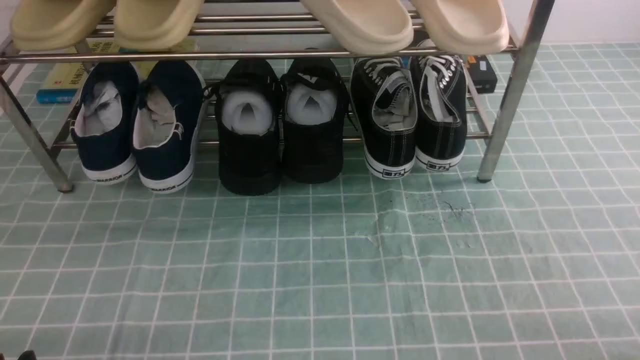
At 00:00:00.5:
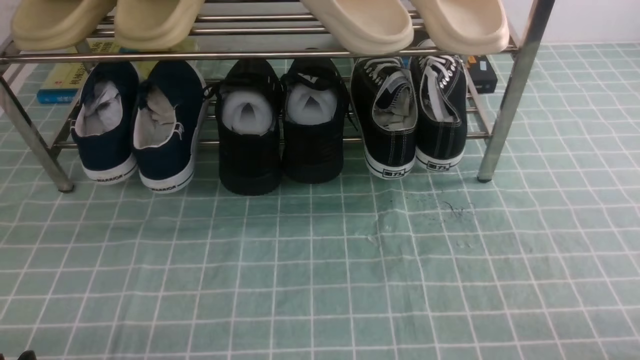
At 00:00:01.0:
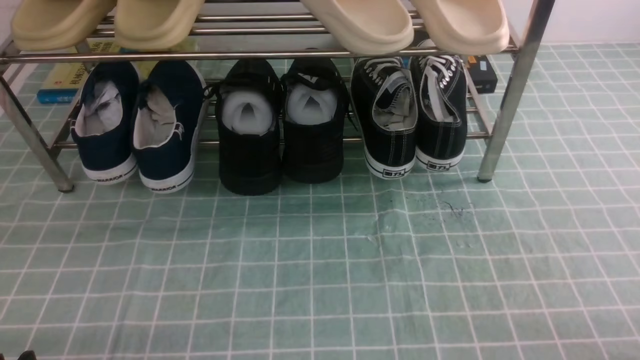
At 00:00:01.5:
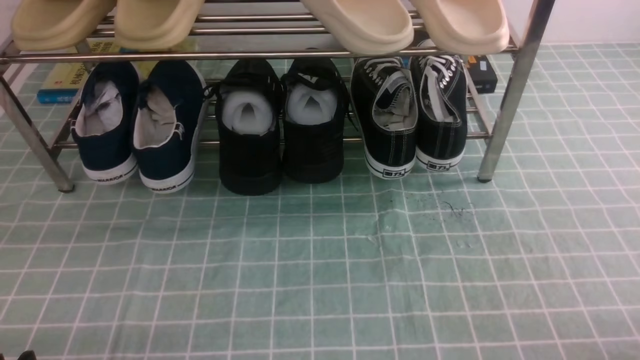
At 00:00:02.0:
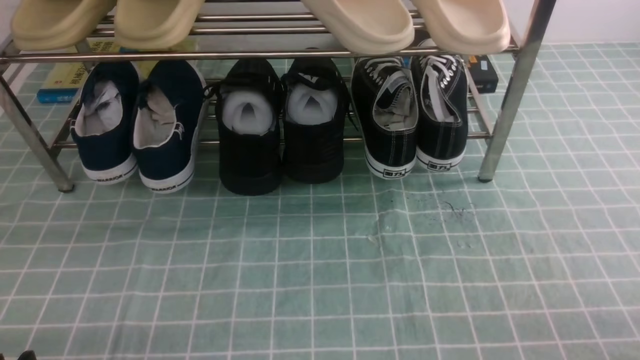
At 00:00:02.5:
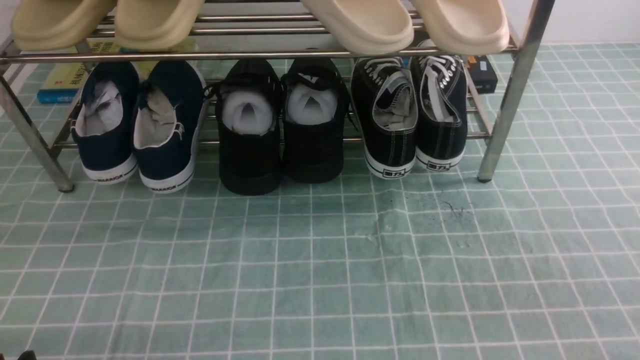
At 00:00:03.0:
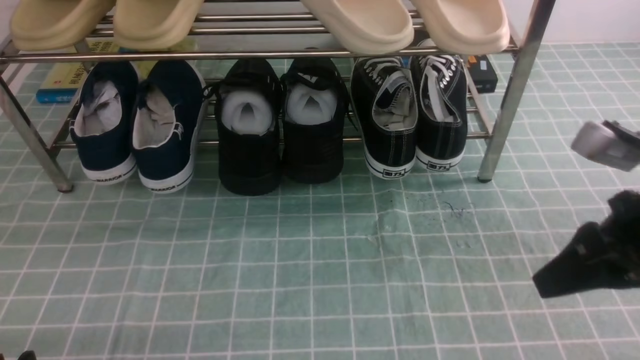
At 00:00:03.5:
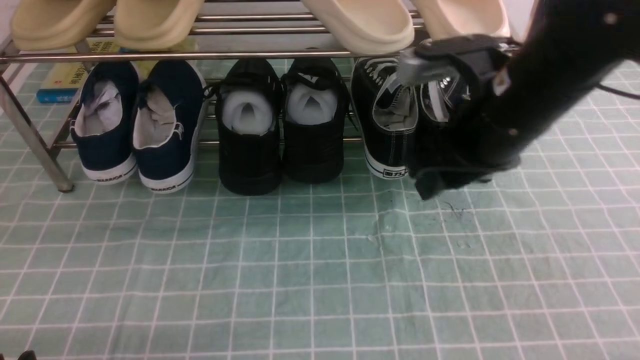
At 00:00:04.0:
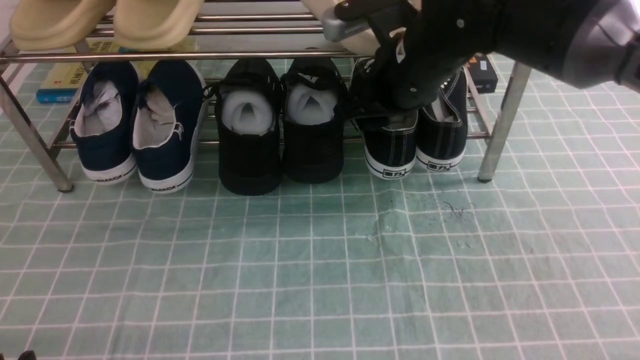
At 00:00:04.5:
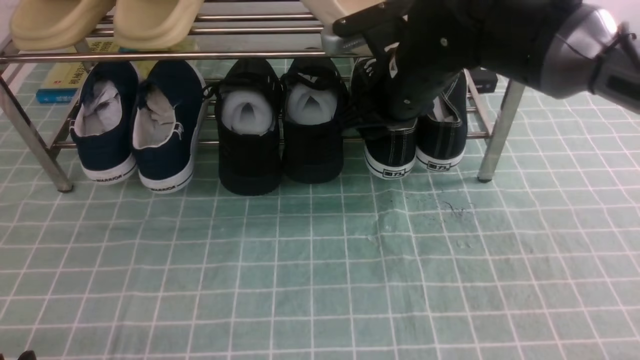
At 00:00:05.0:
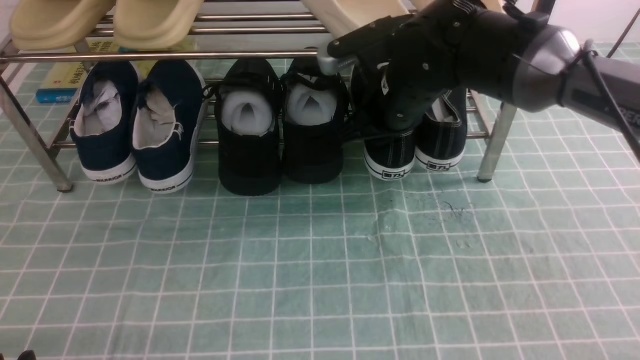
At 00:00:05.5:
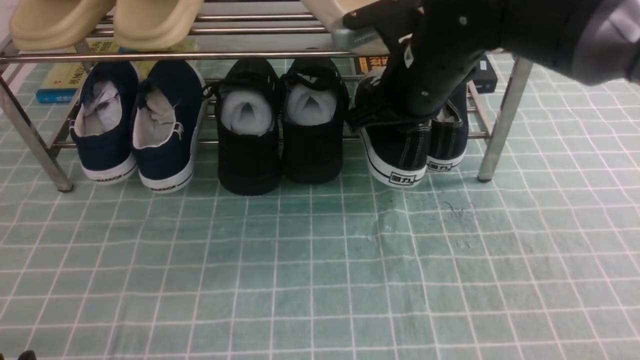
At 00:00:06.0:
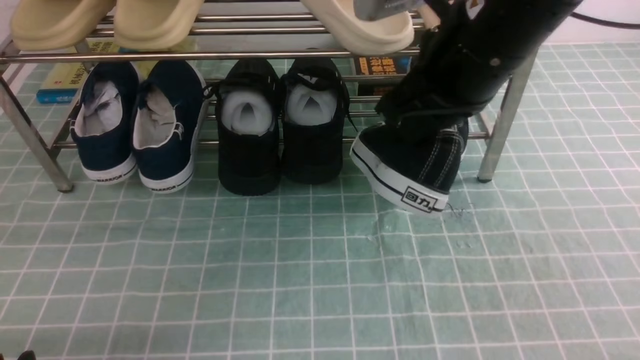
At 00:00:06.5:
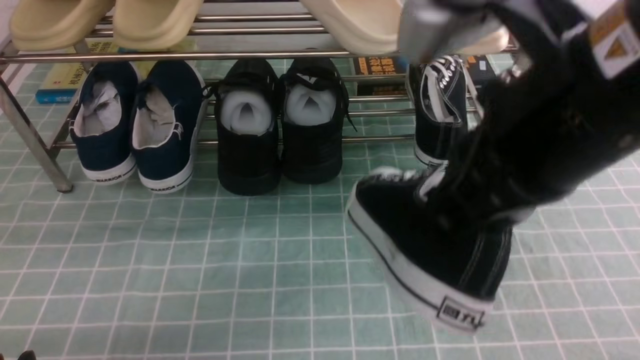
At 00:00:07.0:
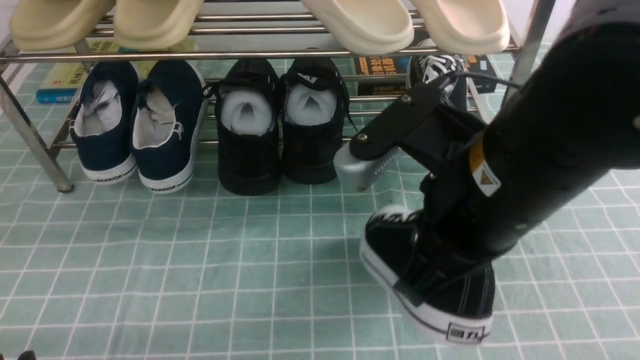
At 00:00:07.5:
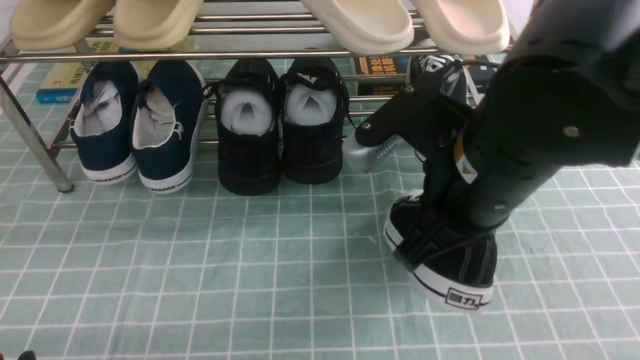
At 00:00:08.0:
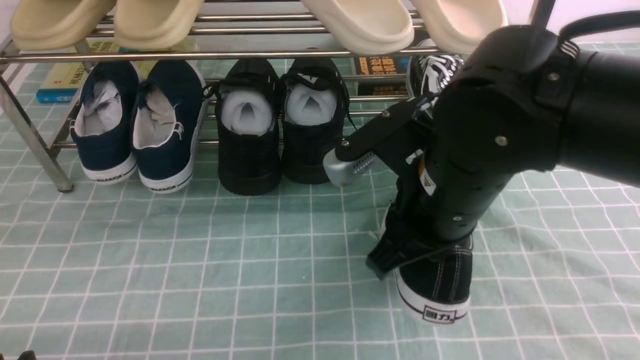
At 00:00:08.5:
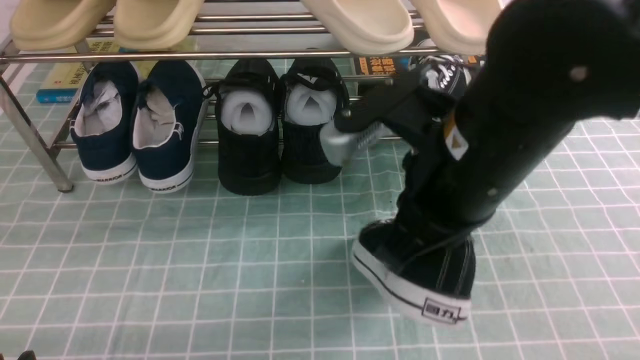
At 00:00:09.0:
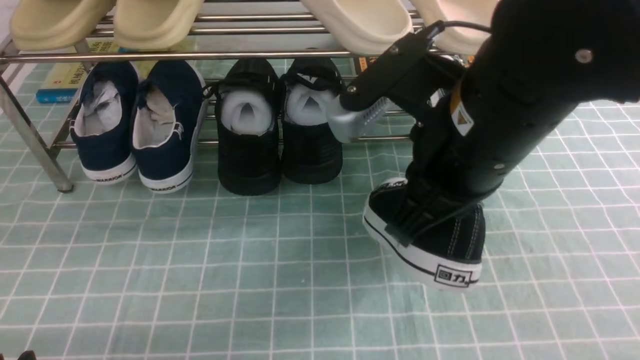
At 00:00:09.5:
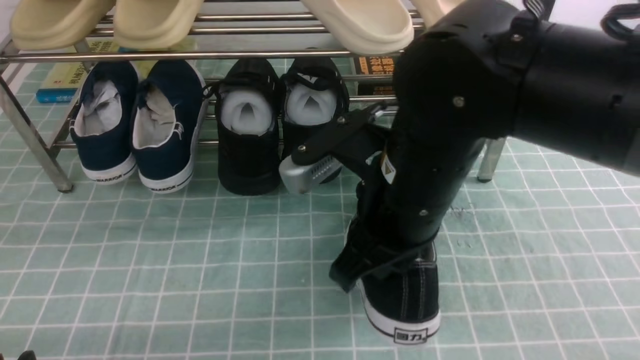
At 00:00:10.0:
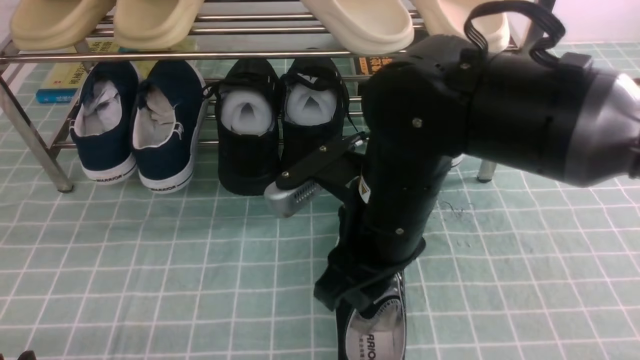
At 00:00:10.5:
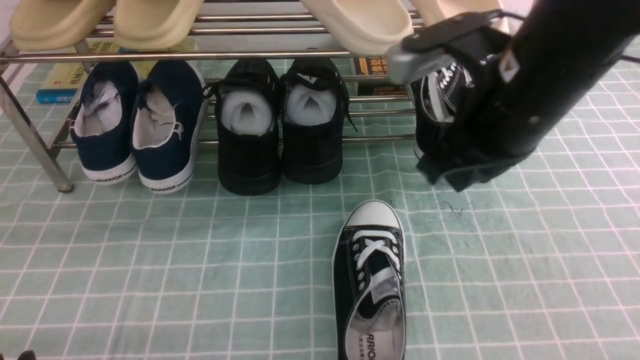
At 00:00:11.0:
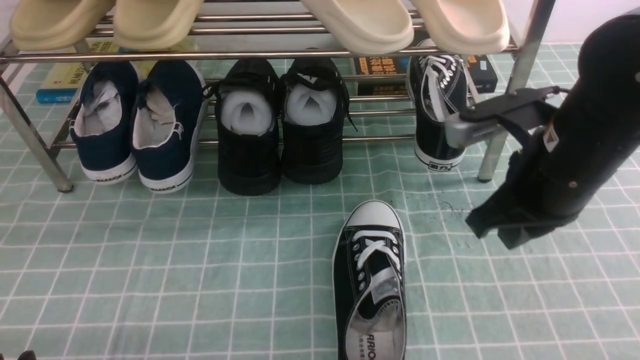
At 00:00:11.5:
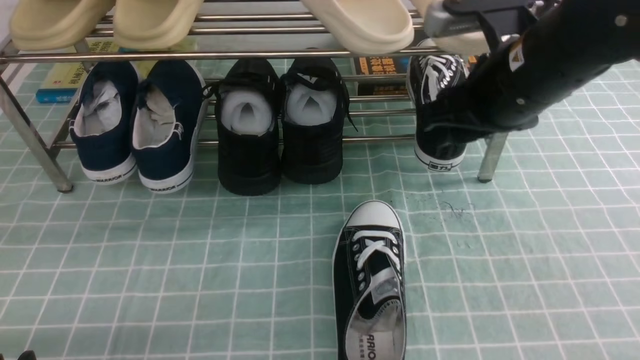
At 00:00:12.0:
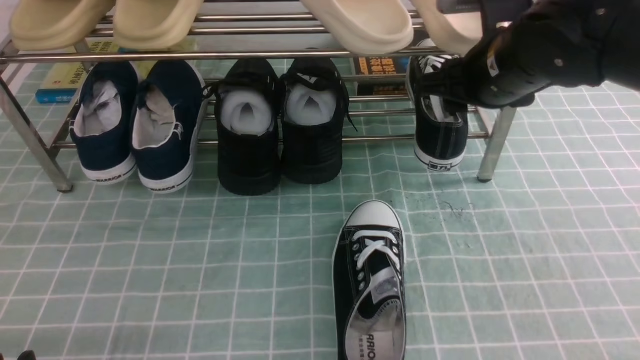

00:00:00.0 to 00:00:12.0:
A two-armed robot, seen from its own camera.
Step, 00:00:00.0 to 00:00:04.5: use the right arm to clamp a shoe on the right side of the shoe rack.
Step, 00:00:05.0 to 00:00:10.0: use the right arm to take out the clamped shoe from the shoe rack and put it down.
00:00:02.0 to 00:00:04.0: The right gripper is displaced forward and to the left by approximately 40 cm, and opens up.
00:00:04.0 to 00:00:06.0: The right gripper heads backward and upward, covering approximately 10 cm, and closes.
00:00:06.0 to 00:00:08.0: The right gripper heads downward, covering roughly 10 cm.
00:00:08.0 to 00:00:10.0: The right gripper opens up.
00:00:10.0 to 00:00:12.0: The right gripper moves forward and to the right, approximately 15 cm, and opens up.

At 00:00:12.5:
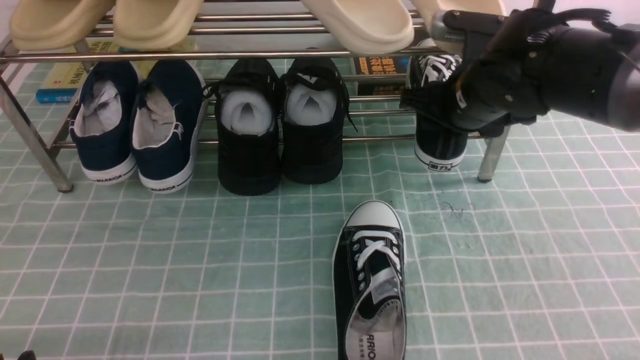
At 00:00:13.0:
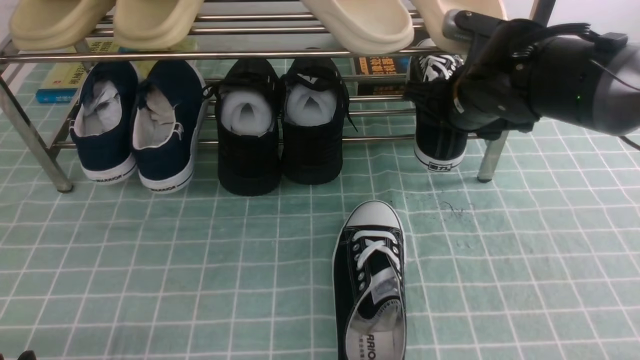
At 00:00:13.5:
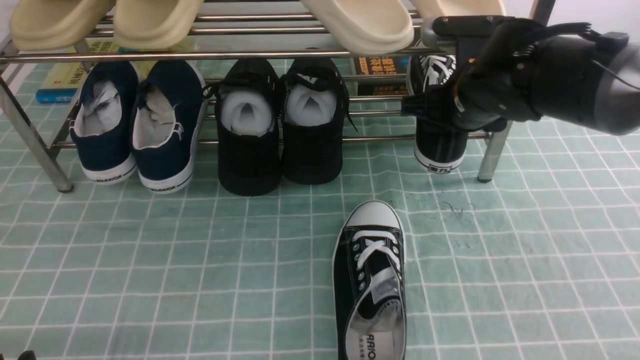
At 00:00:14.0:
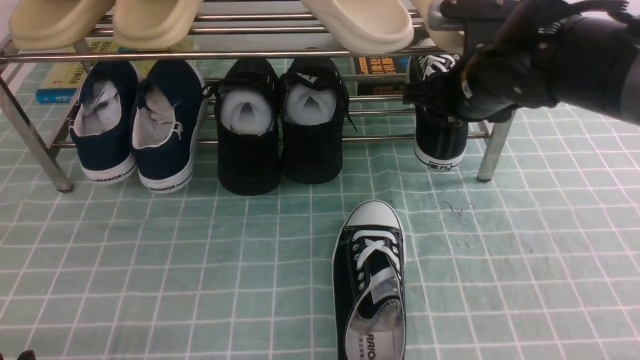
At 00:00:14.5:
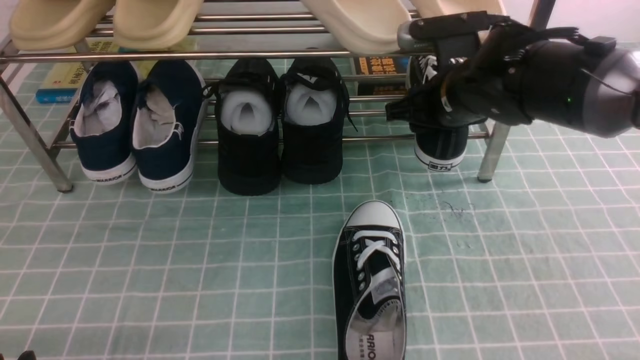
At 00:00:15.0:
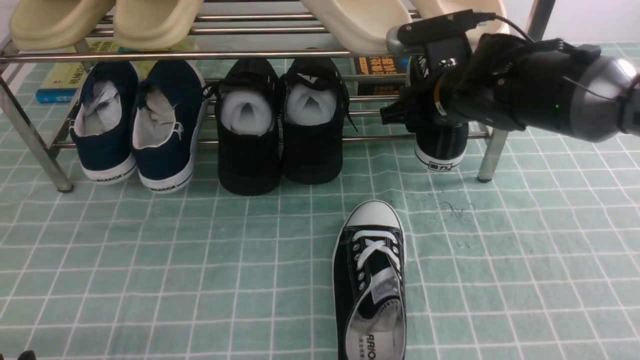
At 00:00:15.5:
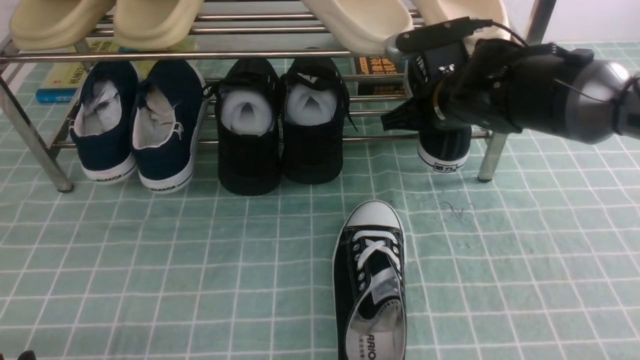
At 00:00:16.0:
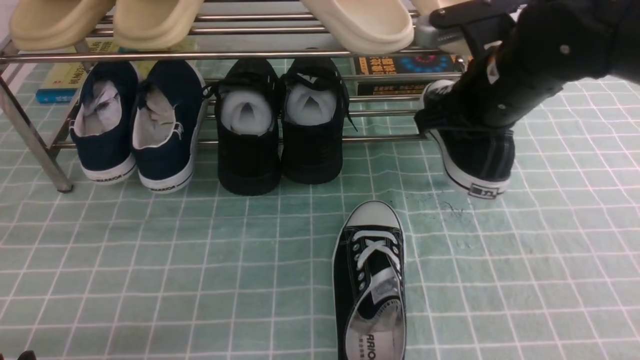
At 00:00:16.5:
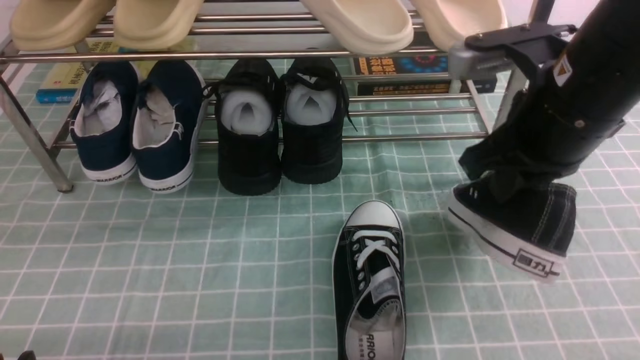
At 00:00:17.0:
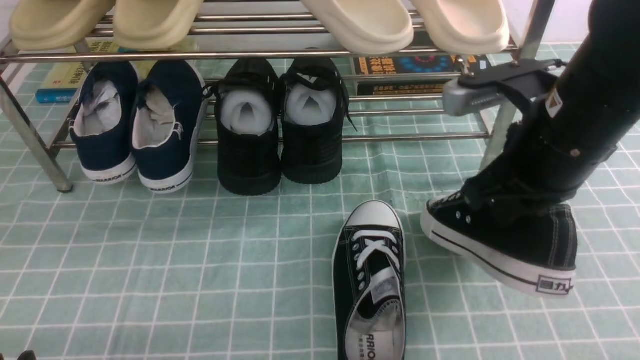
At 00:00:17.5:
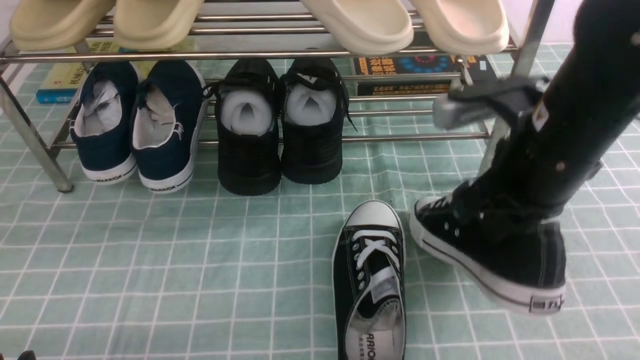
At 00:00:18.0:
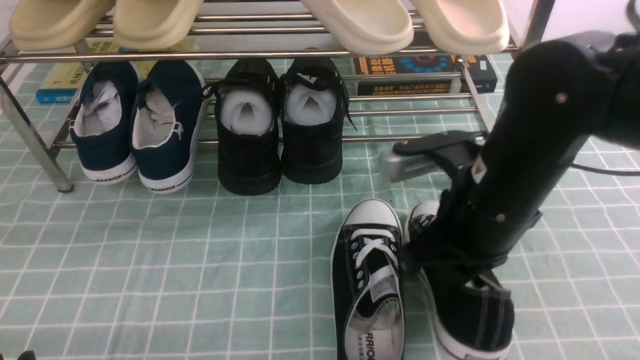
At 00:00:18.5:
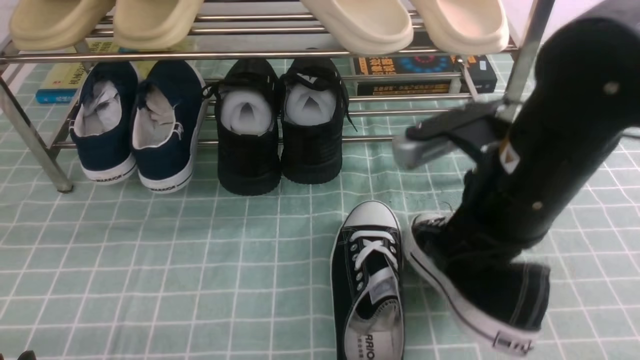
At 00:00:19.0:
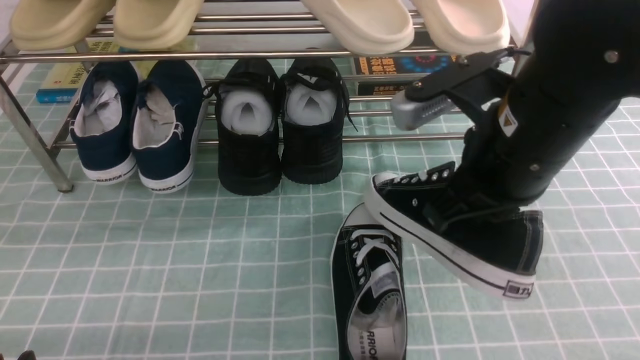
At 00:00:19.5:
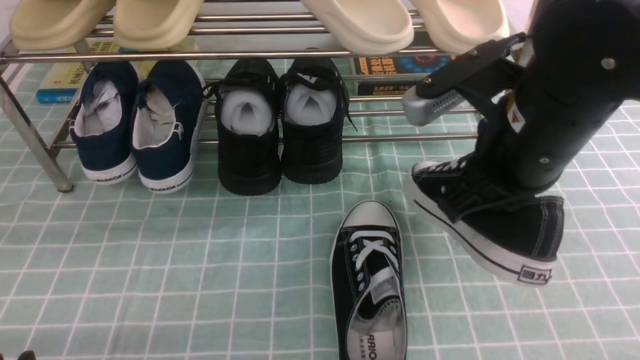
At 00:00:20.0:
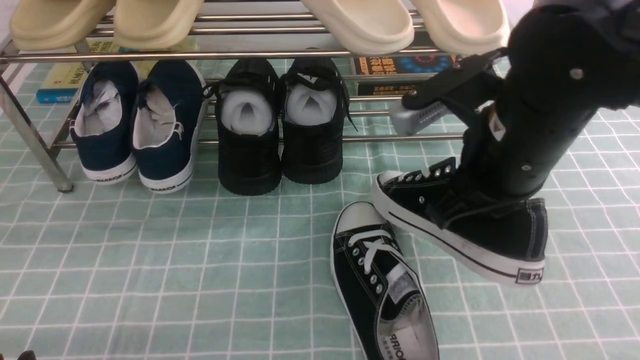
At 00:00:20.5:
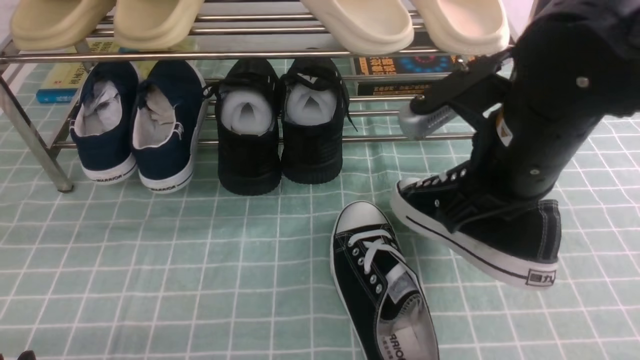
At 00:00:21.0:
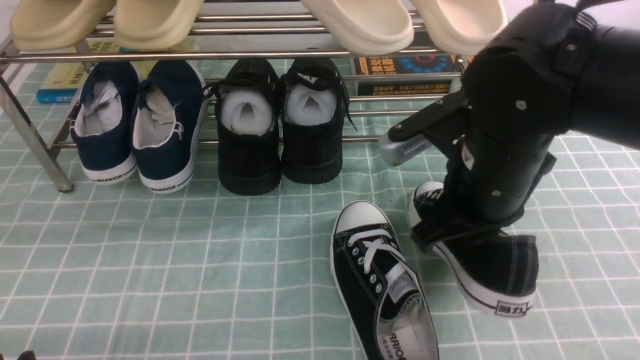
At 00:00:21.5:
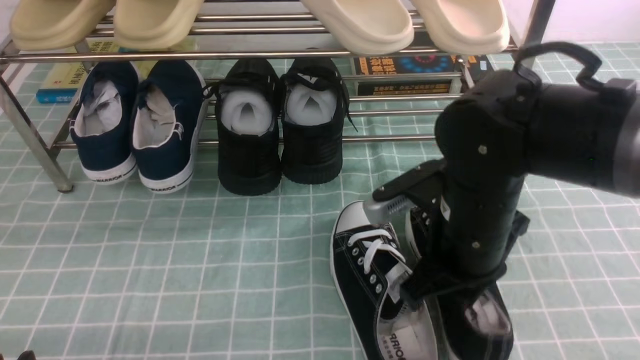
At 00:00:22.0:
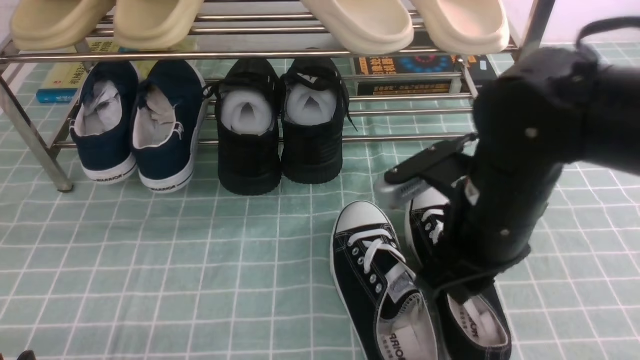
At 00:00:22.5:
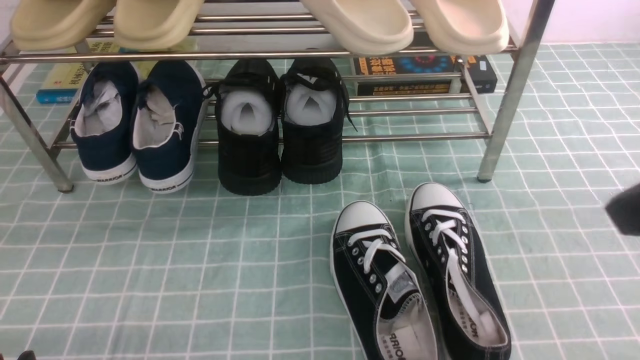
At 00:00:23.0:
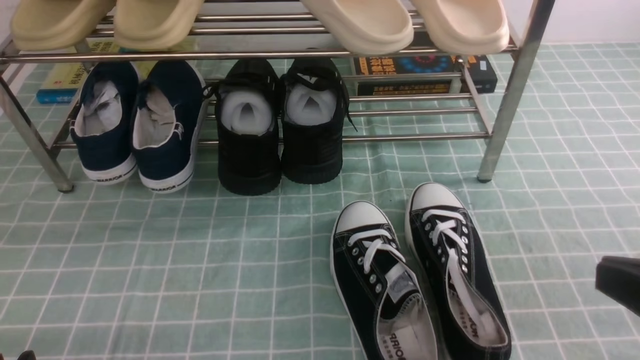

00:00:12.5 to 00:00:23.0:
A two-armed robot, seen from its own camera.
Step, 00:00:12.5 to 00:00:15.5: use the right arm to clamp a shoe on the right side of the shoe rack.
Step, 00:00:16.0 to 00:00:22.0: use the right arm to take out the clamped shoe from the shoe rack and put it down.
00:00:14.5 to 00:00:16.5: The right gripper moves backward and upward, about 15 cm, and closes up.
00:00:19.0 to 00:00:21.0: The right gripper is displaced downward by about 5 cm.
00:00:21.0 to 00:00:23.0: The right gripper goes some 25 cm backward and to the right, and opens and closes again.
